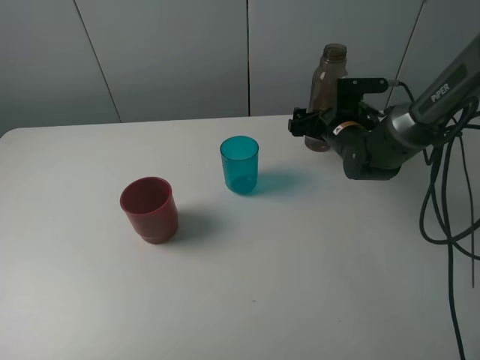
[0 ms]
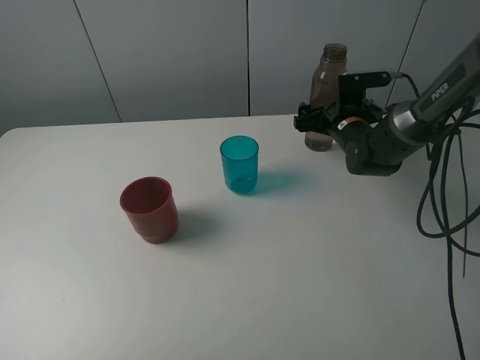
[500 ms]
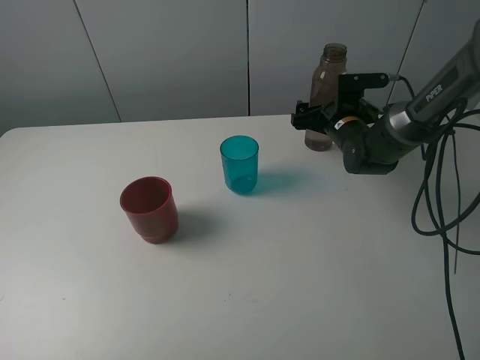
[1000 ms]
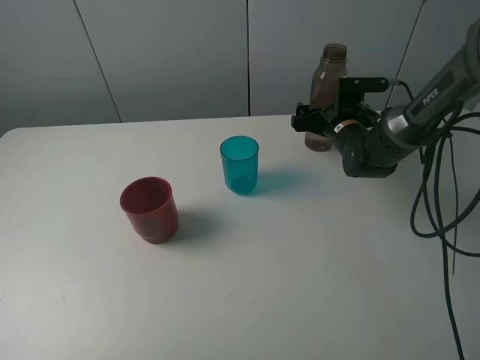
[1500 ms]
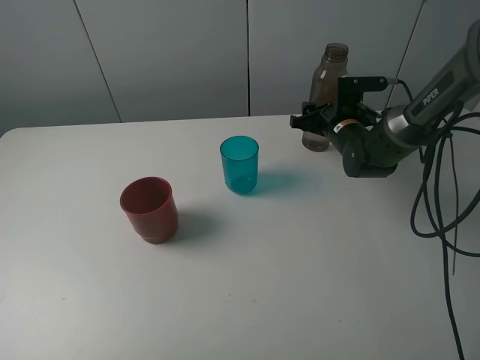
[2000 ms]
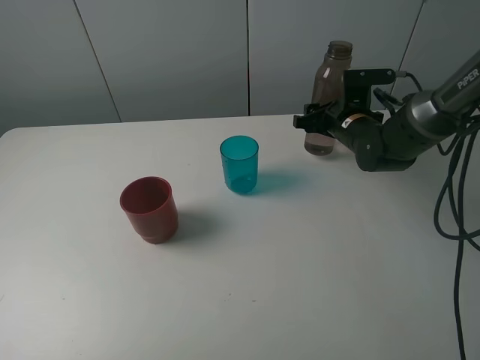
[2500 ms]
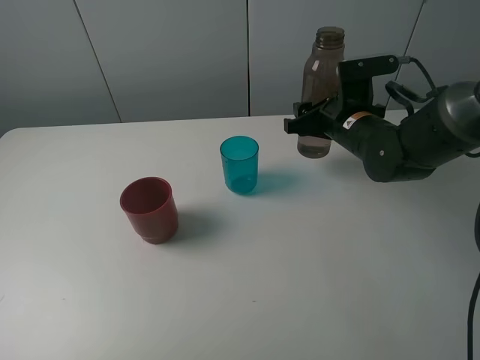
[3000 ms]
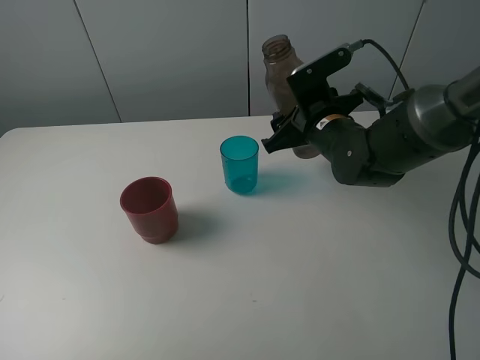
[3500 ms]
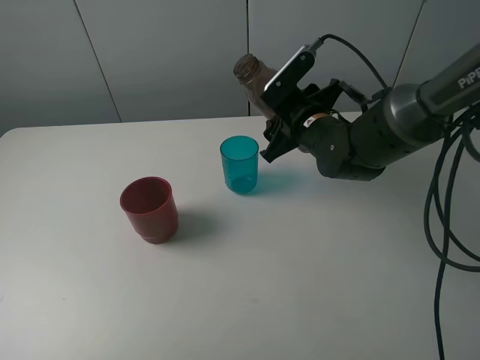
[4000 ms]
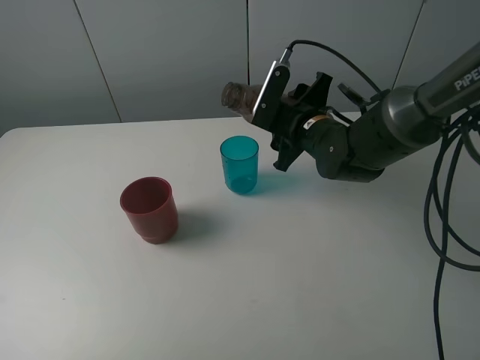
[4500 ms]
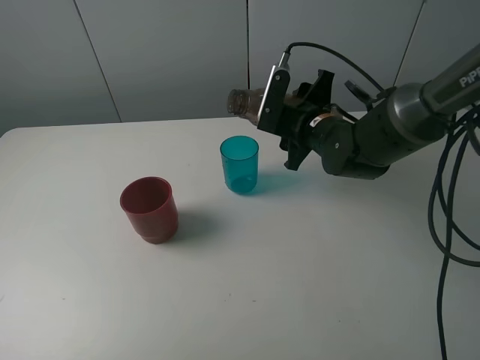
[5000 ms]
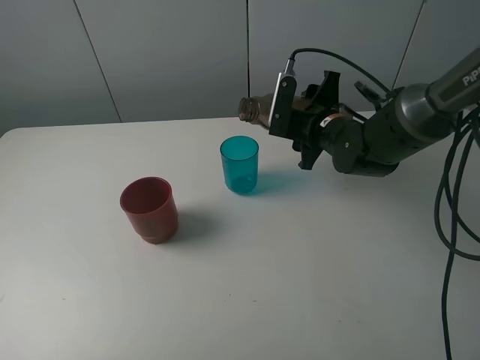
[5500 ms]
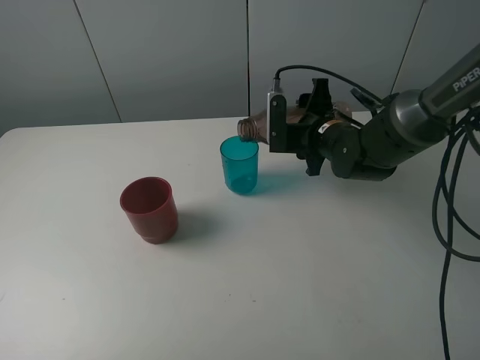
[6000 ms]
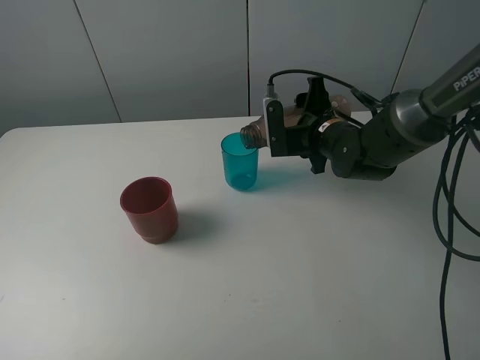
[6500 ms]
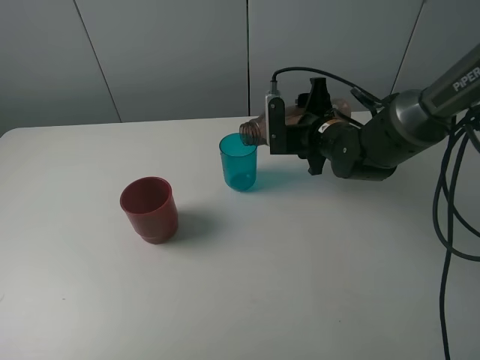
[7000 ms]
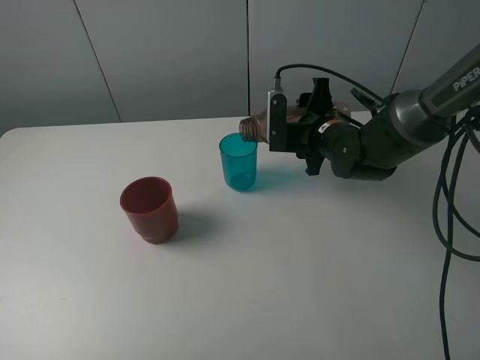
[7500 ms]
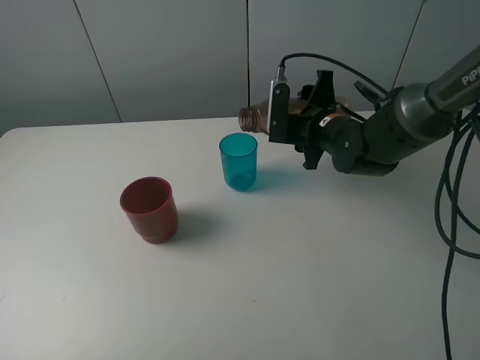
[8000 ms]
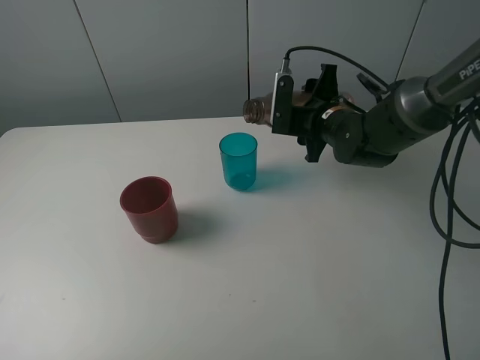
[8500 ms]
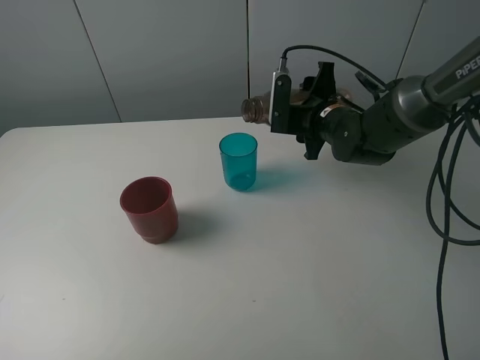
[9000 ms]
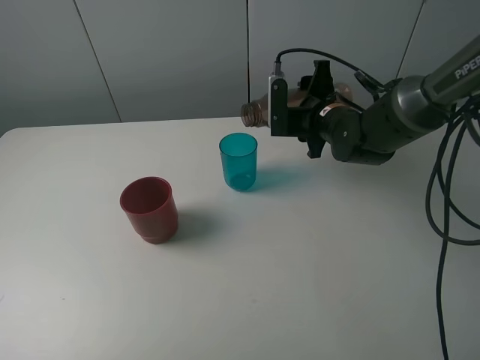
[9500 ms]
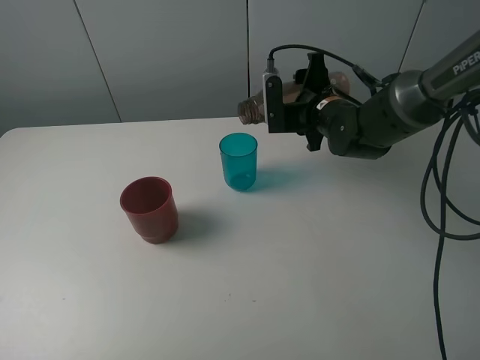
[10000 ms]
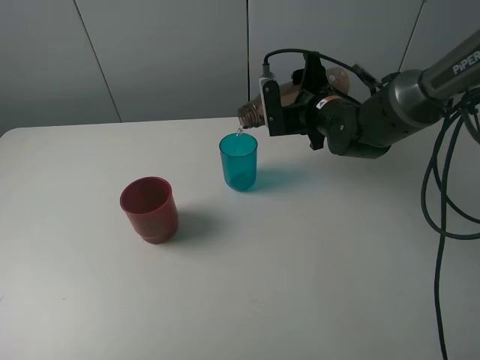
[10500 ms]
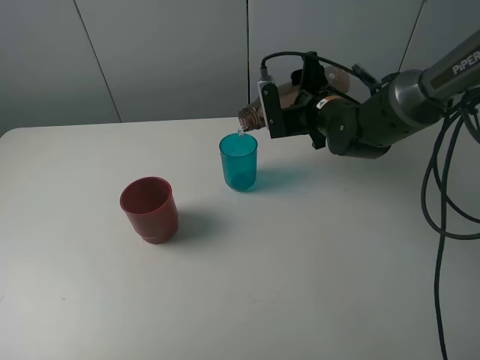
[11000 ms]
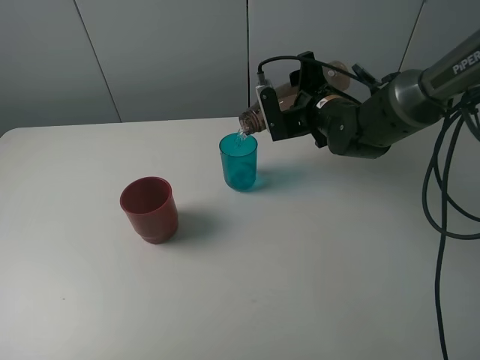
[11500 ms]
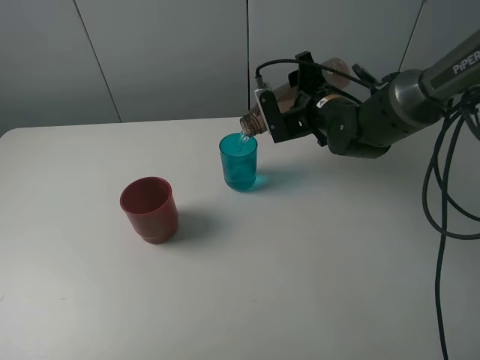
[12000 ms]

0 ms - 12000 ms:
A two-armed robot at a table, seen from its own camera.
Task of the whole recording: pick up the bottle and pour water into the cup, then pick up the cup containing water and pour it into another cup.
0 ms - 2000 ms: The right gripper closes up.
2000 ms - 4000 ms: The right gripper heads backward, to the left and upward, covering roughly 10 cm.
6000 ms - 10000 ms: The grippers make only small movements.
10000 ms - 12000 ms: There are only small adjustments of the grippers.

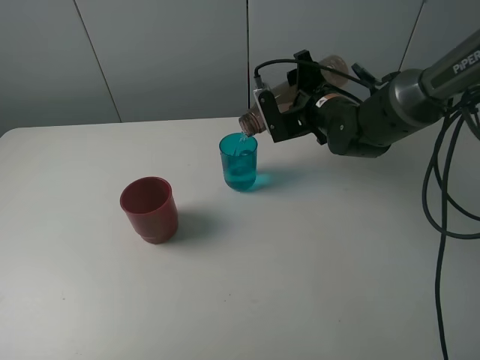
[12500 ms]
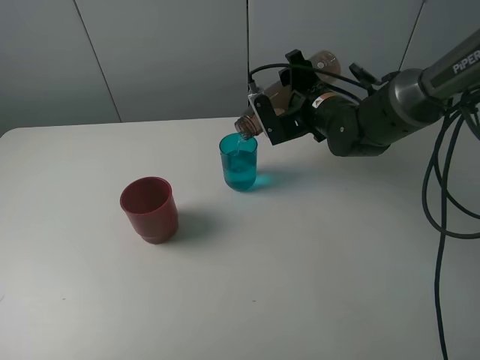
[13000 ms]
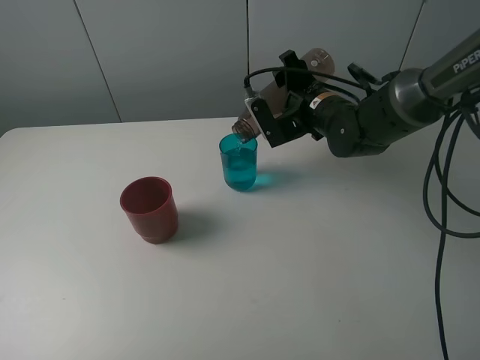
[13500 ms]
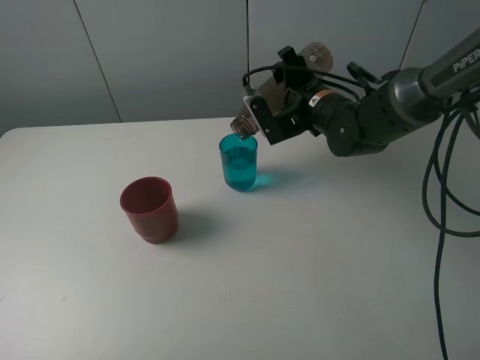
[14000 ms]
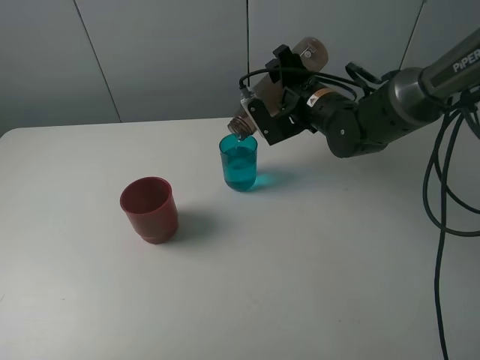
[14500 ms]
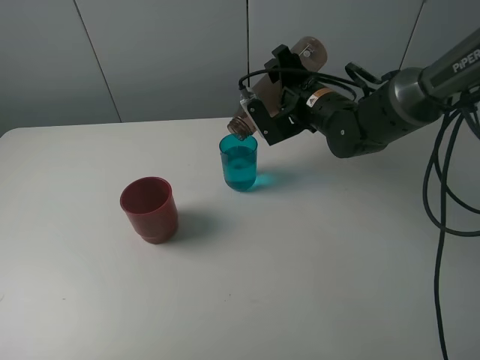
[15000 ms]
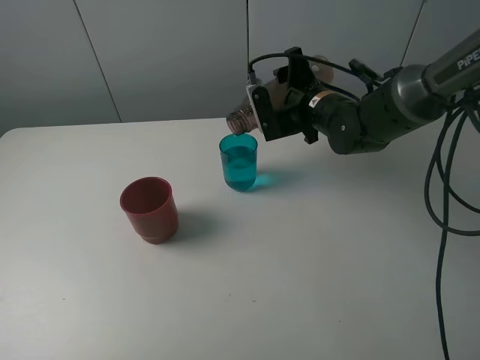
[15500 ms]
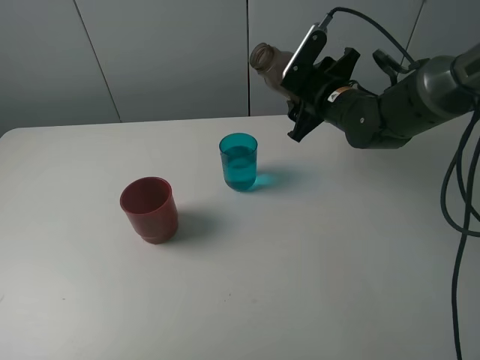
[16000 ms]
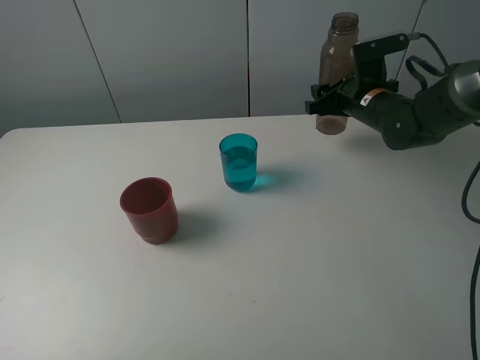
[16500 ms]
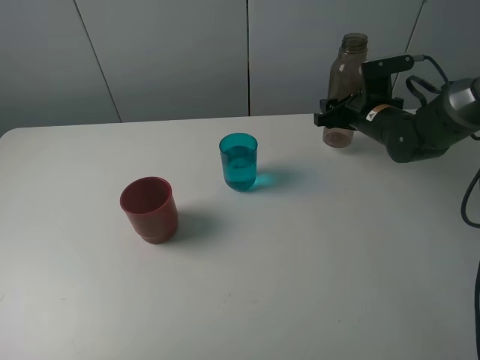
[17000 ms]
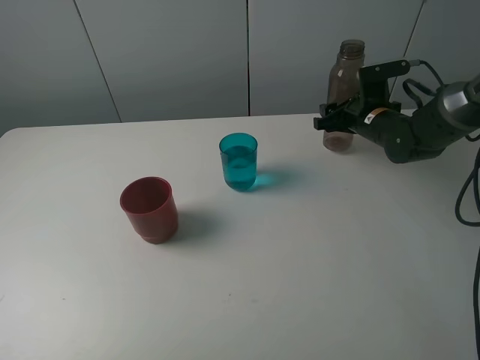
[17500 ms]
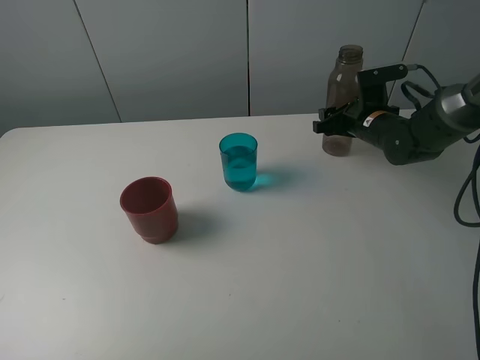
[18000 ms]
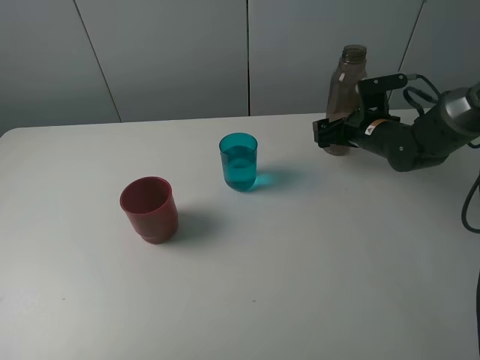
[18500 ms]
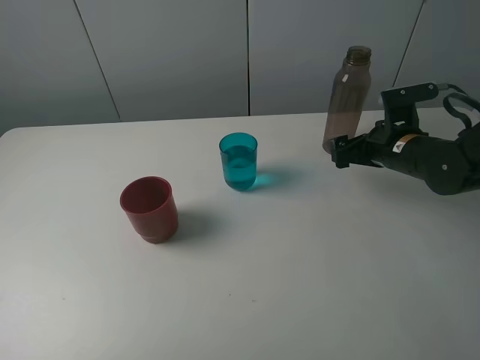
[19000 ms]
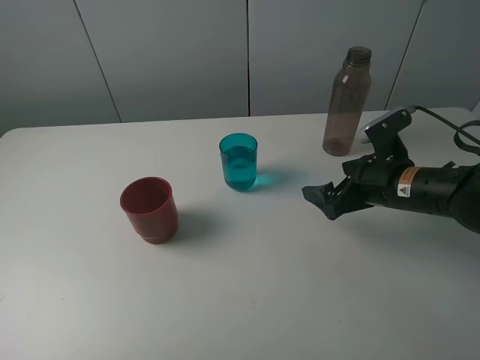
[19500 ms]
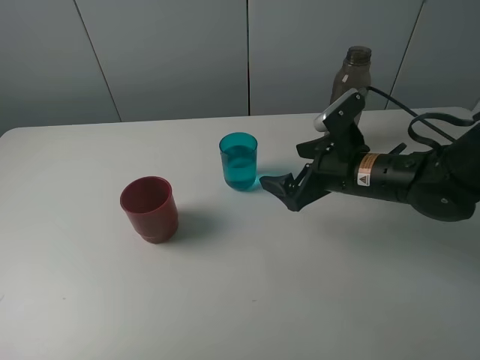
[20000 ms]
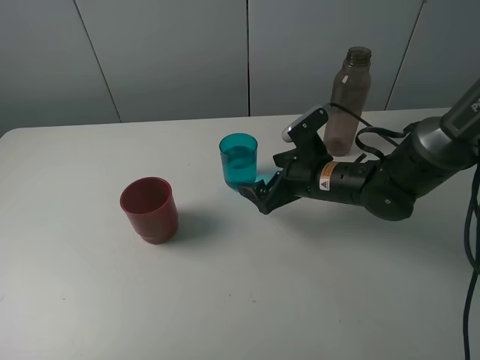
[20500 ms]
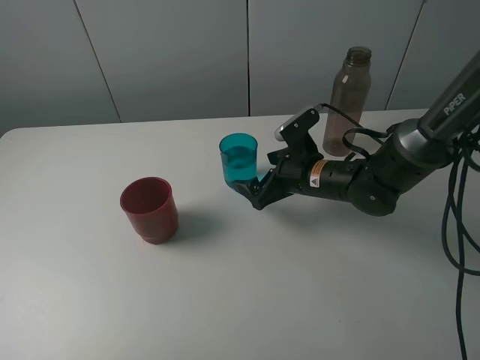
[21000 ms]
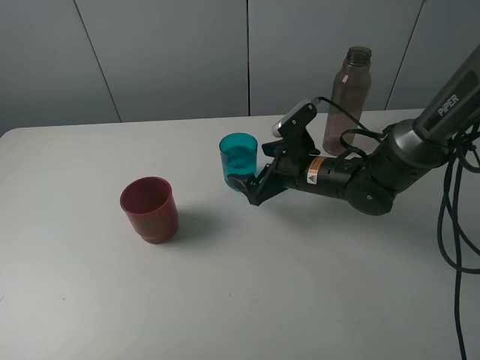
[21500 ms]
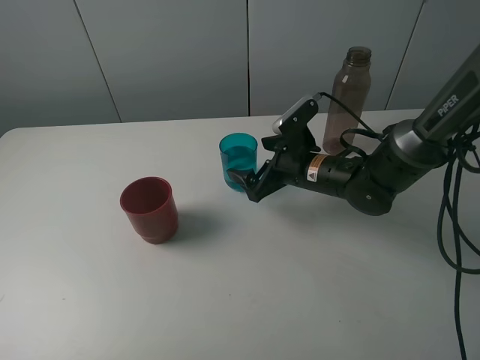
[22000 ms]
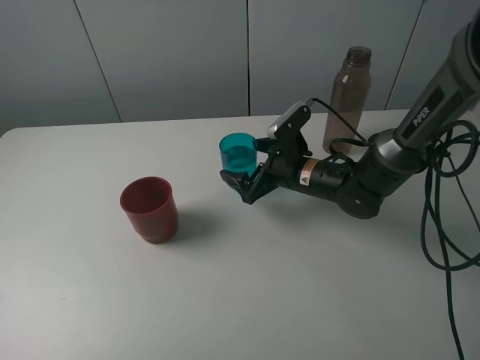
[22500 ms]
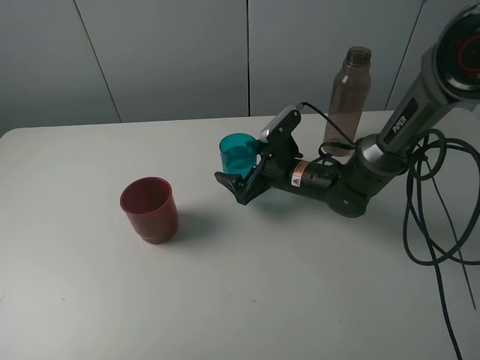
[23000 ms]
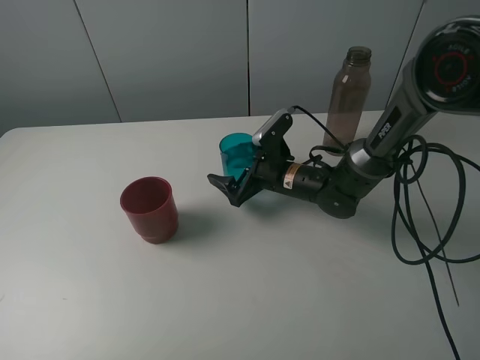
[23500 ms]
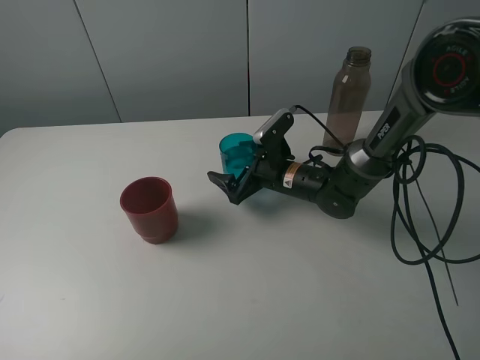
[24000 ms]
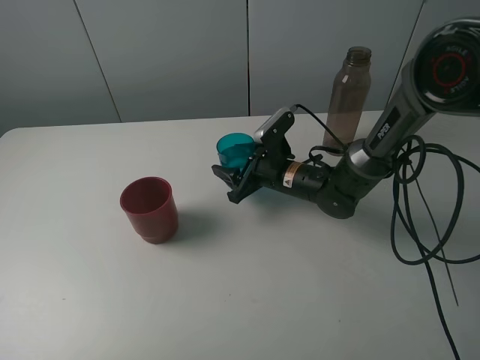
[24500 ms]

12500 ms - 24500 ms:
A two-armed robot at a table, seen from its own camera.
Task of the whole recording: pick up the bottle and pour water into the cup, then pick up the cup containing water and pour it into another cup.
Step, 12500 ms - 15000 ms: Pour water from brown bottle to blue cup with the right gripper.
Step, 15500 ms - 18500 ms: Place the brown bottle with the right gripper.
12500 ms - 14500 ms: The grippers move only a little.
14500 ms - 16500 ms: The right gripper is displaced to the right by about 10 cm.
16500 ms - 18500 ms: The right gripper changes place by some 5 cm, and opens its fingers.
18500 ms - 20500 ms: The right gripper travels to the left and backward by about 15 cm.
20500 ms - 22500 ms: The grippers move only a little.
22500 ms - 24500 ms: The right gripper closes its fingers.

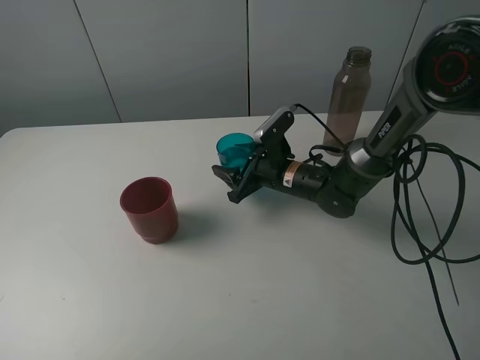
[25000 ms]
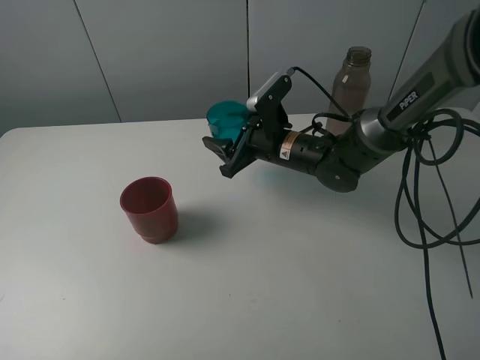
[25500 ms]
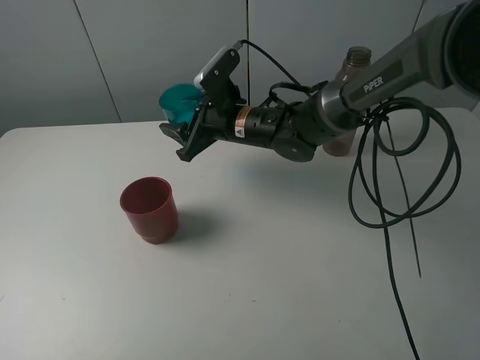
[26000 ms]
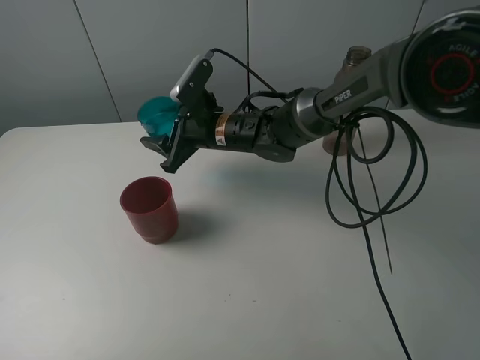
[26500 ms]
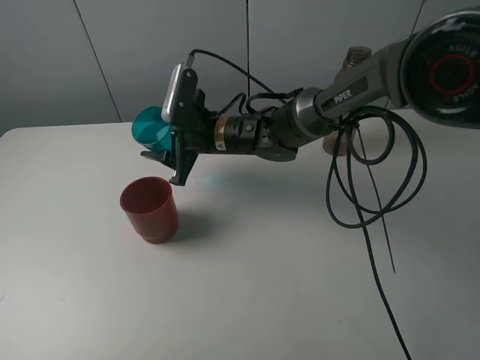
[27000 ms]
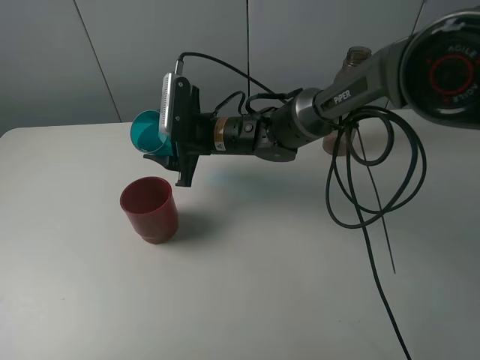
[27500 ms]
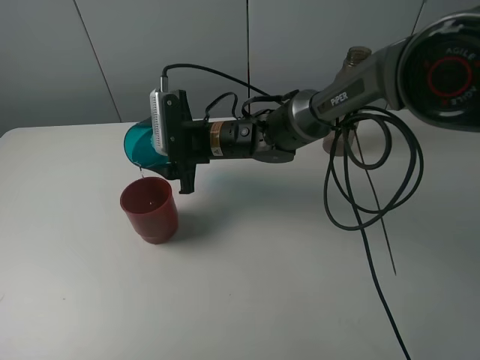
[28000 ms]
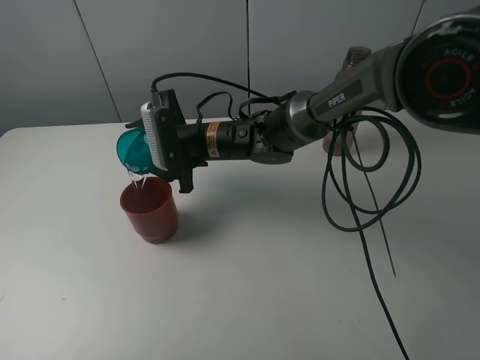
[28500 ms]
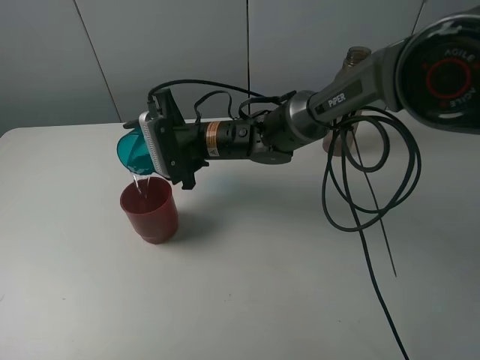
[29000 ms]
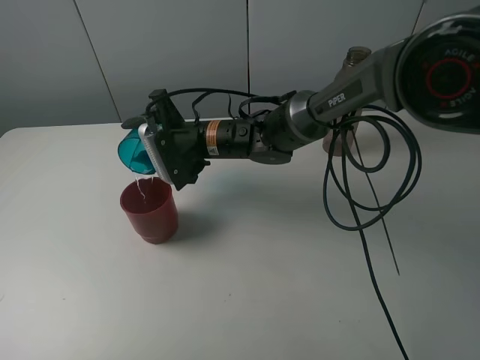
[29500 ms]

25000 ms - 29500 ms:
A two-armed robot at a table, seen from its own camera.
Task of the whole recording: pick up the bottle and pour water into the cup, then pick up the cup containing water and pour it into another cup.
25000 ms - 27000 ms: The right gripper shifts about 15 cm to the left and upward.
